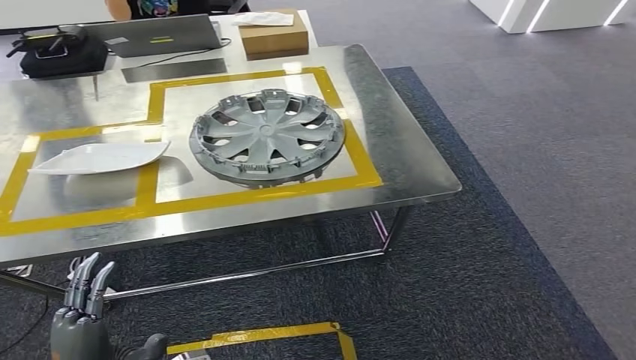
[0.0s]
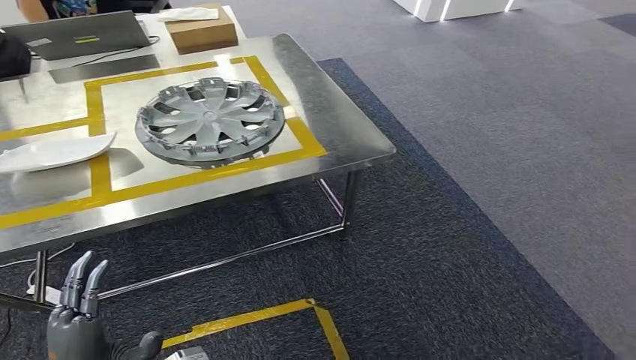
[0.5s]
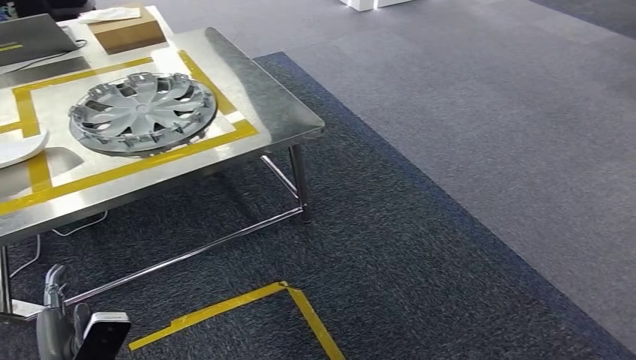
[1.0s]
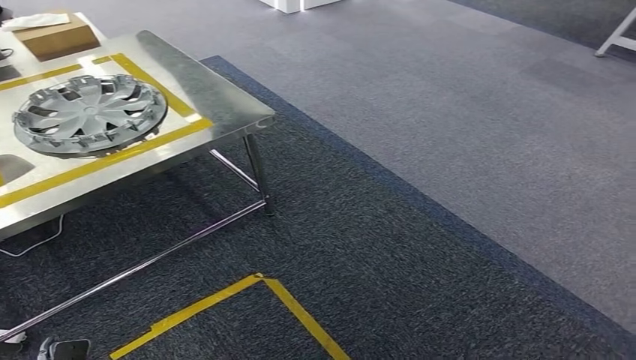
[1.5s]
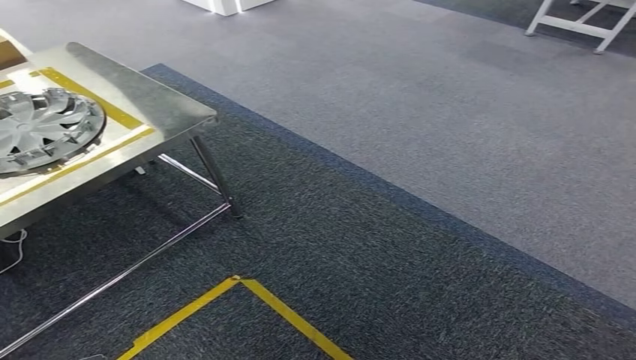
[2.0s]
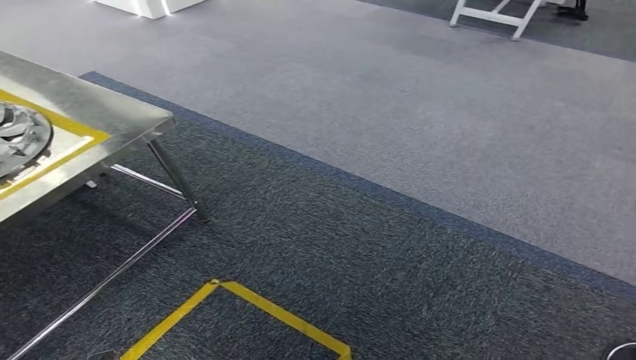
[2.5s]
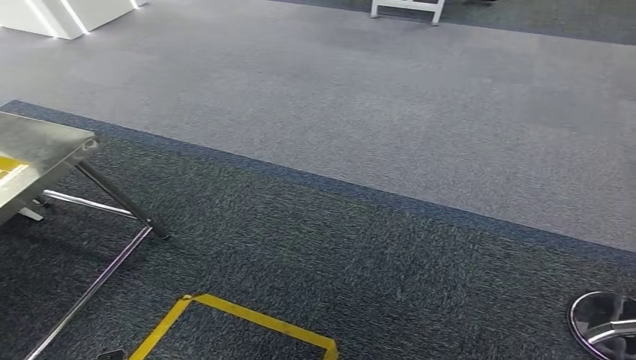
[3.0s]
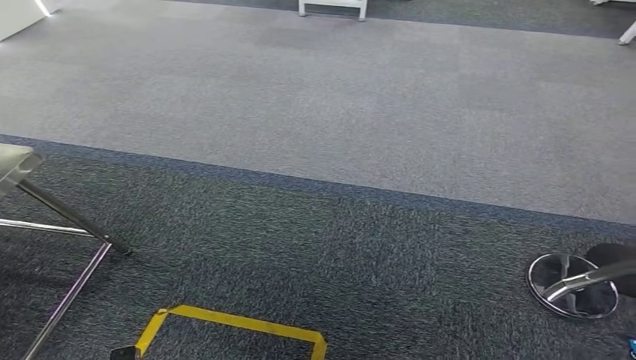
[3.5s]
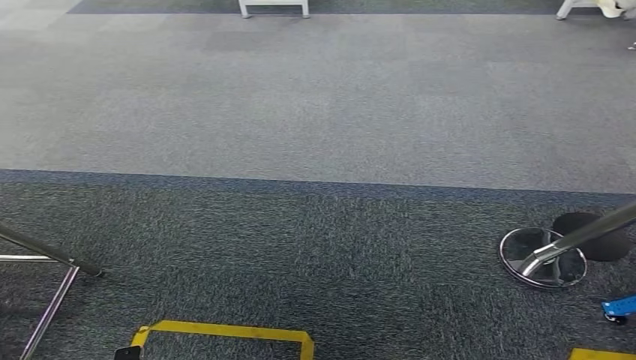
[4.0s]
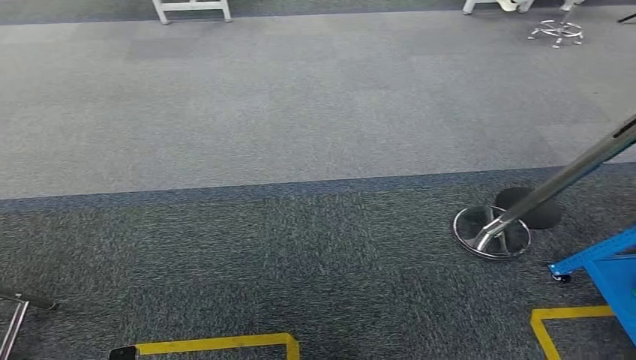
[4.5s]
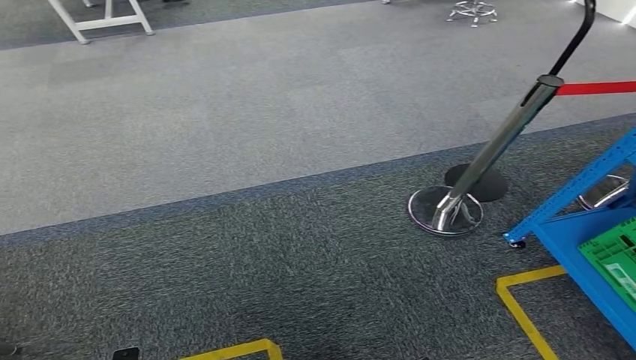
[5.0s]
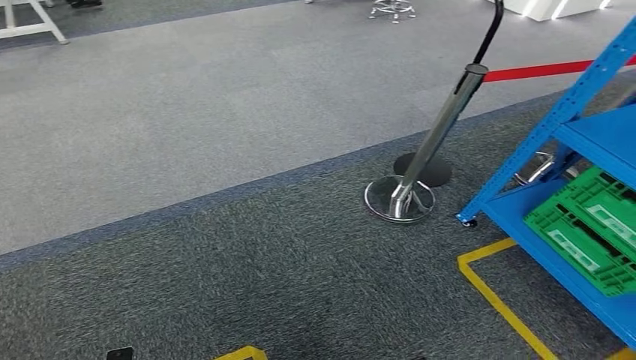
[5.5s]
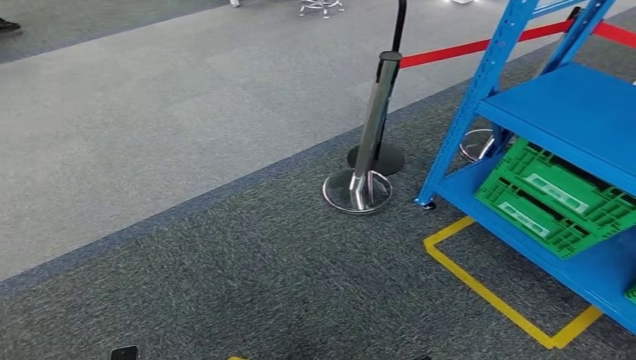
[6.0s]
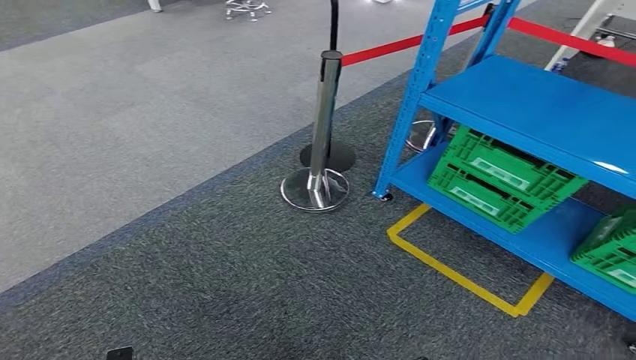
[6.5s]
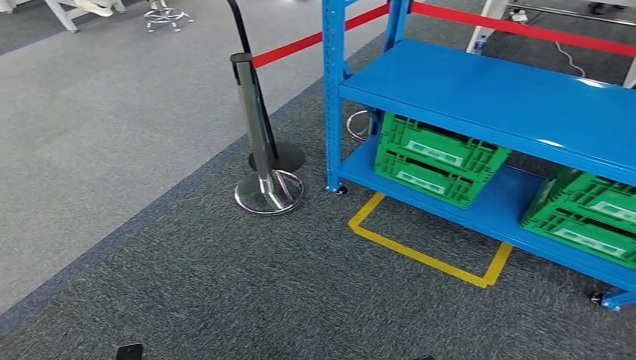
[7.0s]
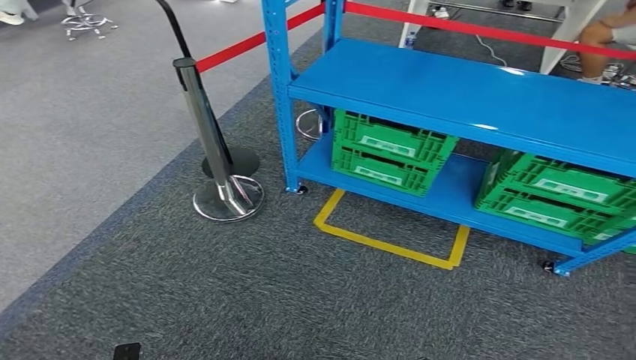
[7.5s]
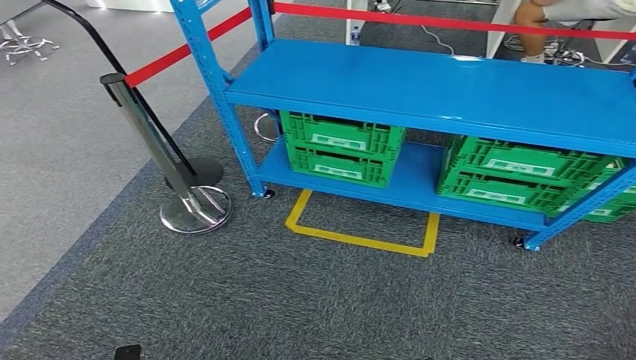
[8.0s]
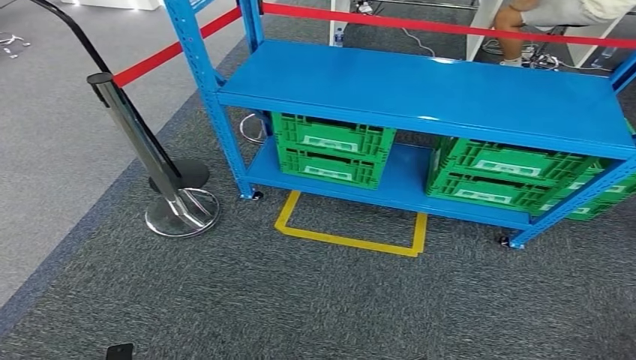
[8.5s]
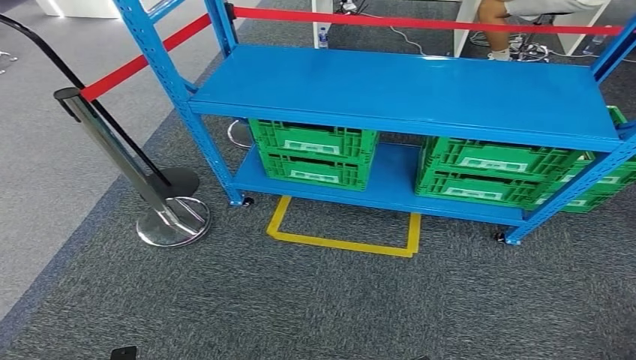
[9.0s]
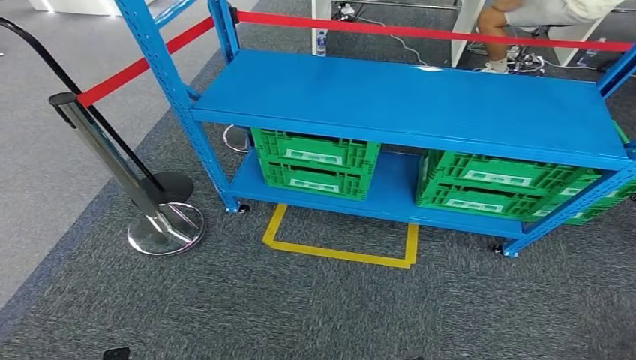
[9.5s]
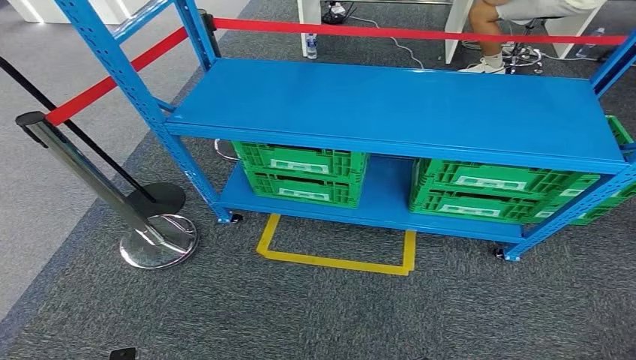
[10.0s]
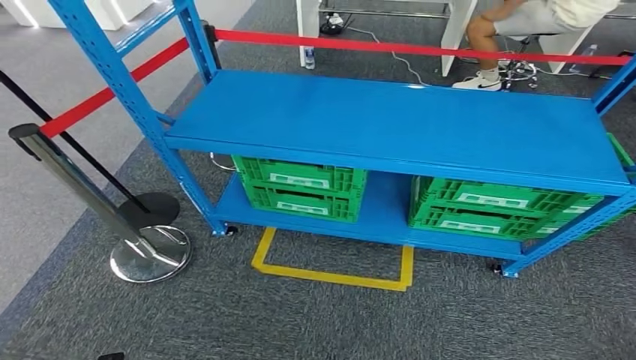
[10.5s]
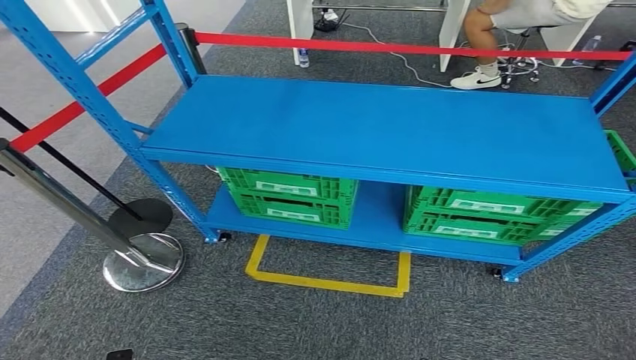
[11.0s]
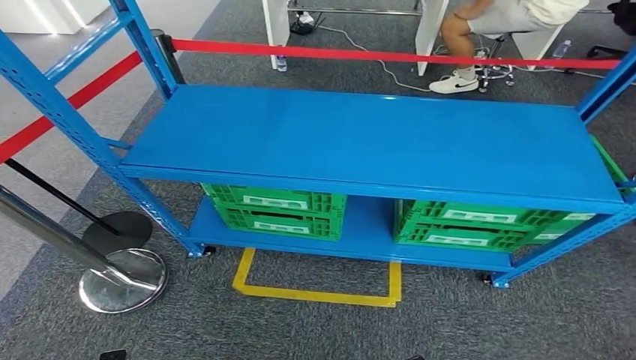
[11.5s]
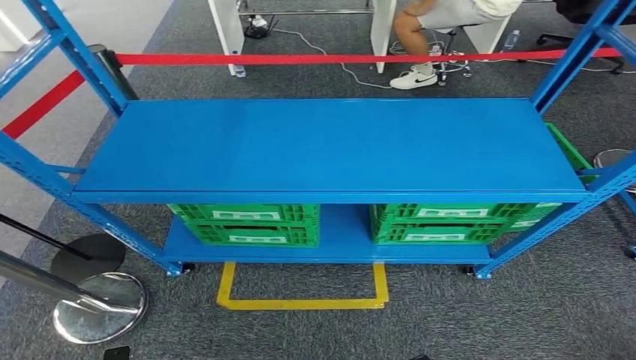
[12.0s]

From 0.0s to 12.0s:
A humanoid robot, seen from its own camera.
Step, from 0.0s to 12.0s: Move to the initial position of the workbench.
